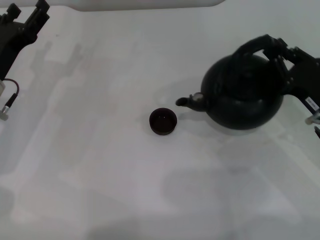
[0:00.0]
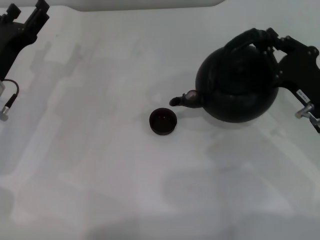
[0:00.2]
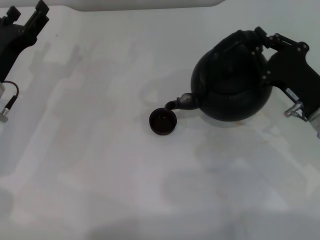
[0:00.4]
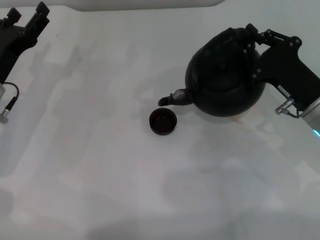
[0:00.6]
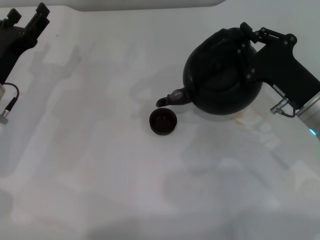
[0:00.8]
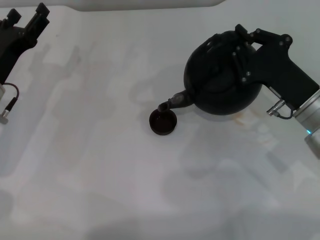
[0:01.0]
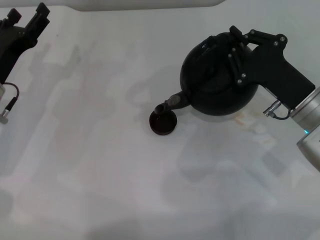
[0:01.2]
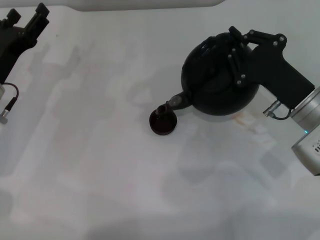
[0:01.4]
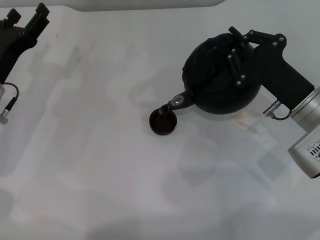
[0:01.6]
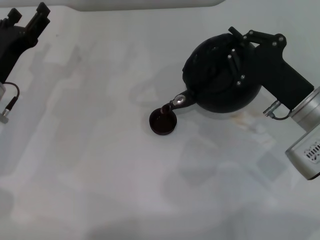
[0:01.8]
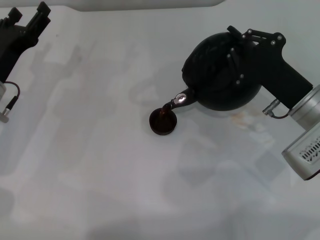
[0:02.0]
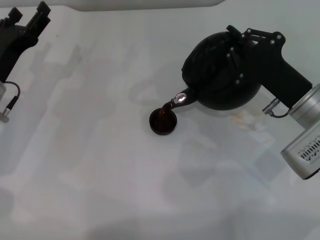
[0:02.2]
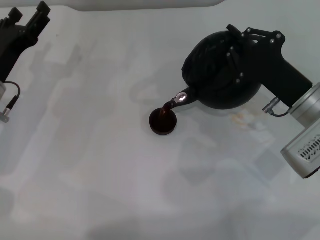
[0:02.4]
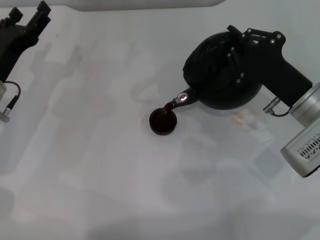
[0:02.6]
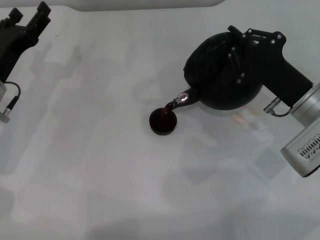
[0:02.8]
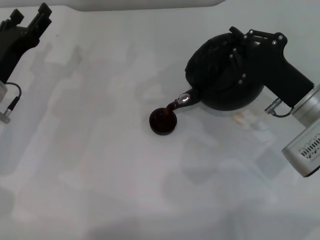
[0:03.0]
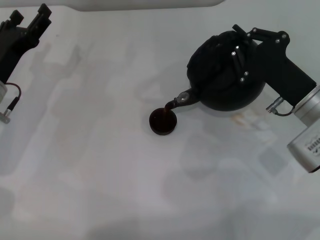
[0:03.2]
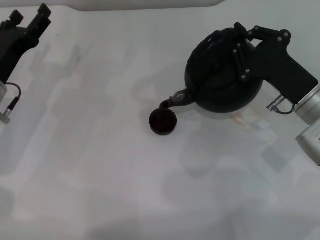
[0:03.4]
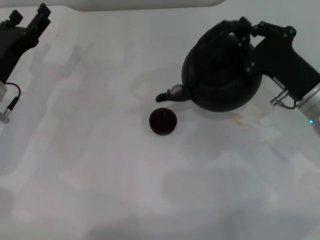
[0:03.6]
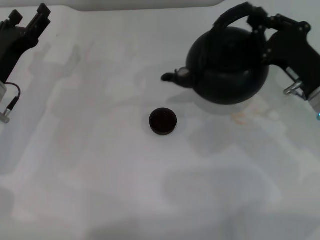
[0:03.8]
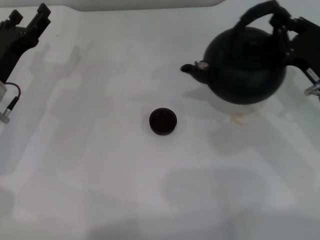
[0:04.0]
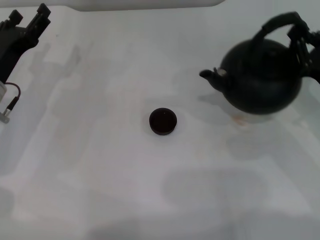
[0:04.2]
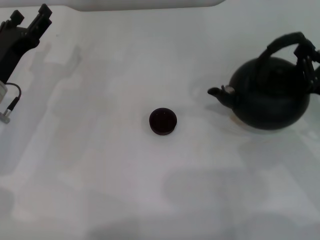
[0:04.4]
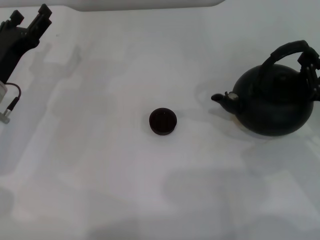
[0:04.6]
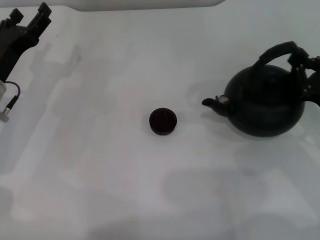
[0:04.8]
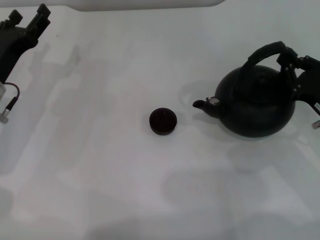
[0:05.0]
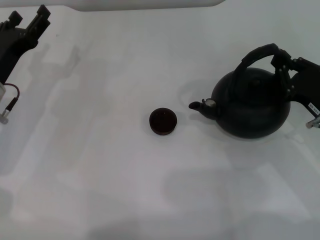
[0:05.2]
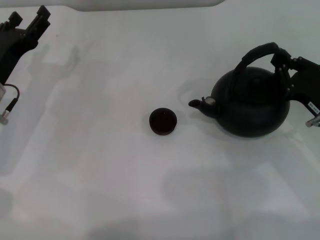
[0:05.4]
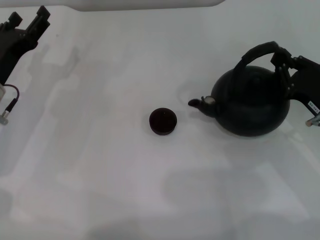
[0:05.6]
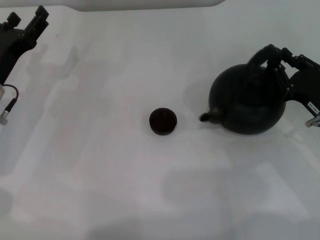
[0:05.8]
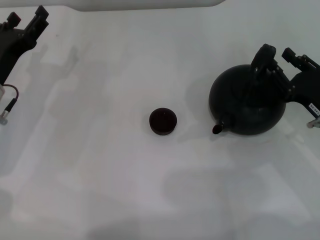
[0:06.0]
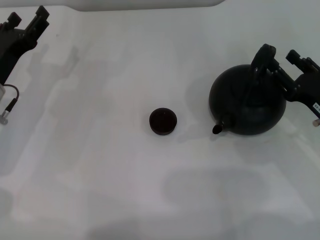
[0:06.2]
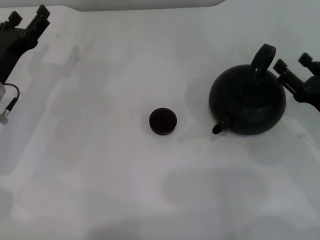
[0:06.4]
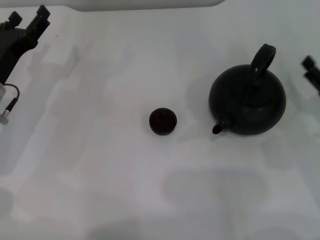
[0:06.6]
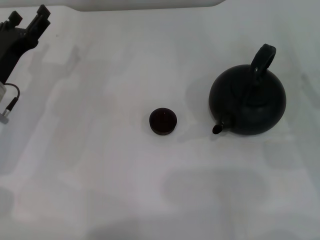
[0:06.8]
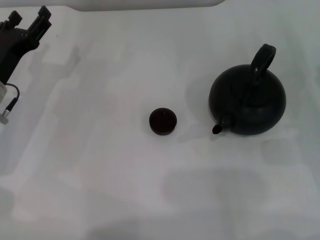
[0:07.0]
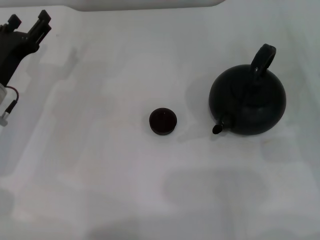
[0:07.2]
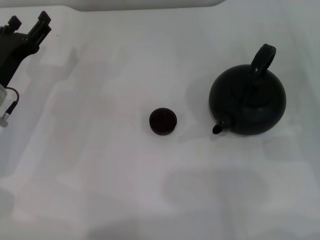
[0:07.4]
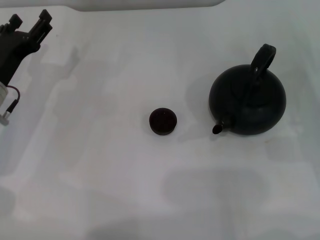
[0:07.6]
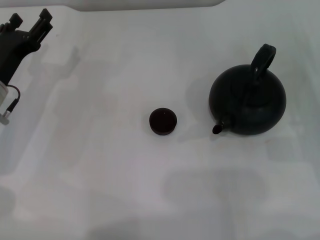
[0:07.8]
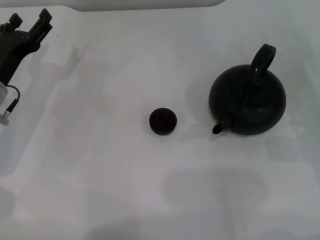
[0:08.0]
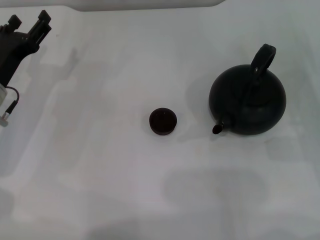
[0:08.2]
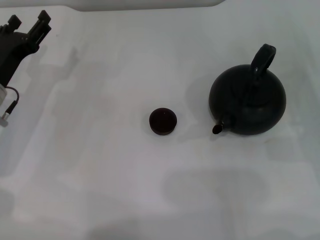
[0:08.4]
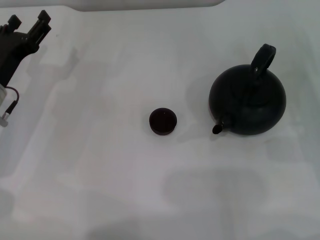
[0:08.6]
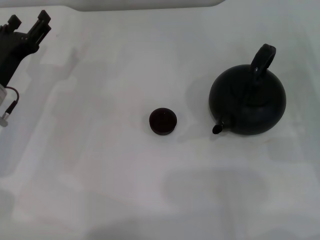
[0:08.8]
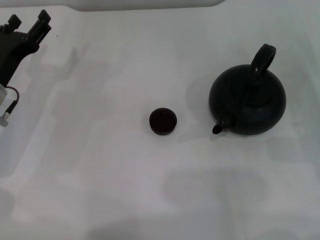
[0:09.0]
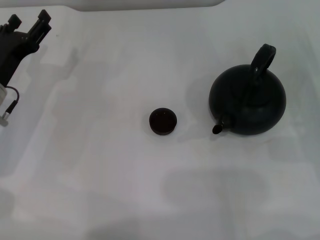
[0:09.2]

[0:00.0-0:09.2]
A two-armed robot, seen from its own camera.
Task of the whole recording: Grasp the handle of the teapot with one hand and pour tea into the teacup.
Step, 0:00.0 to 0:03.4: Pour tea into the teacup with the right gripper.
Step, 0:03.6 to 0:06.2: Put down the teapot with the right gripper.
0:00.0 to 0:01.6: The right gripper ends up some 5 cm from where it was.
0:01.6 to 0:03.0: There are only small adjustments of the grippers.
0:03.0 to 0:04.6: The right gripper shifts approximately 10 cm to the right.
0:04.6 to 0:06.2: The grippers make only small movements.
0:06.2 to 0:07.6: The right gripper heads to the right, covering approximately 5 cm, and opens up.
0:07.6 to 0:09.2: Both grippers stay about where they are.
